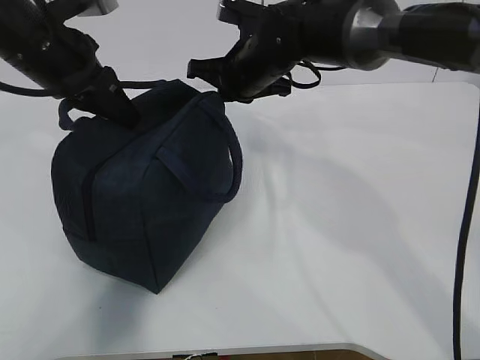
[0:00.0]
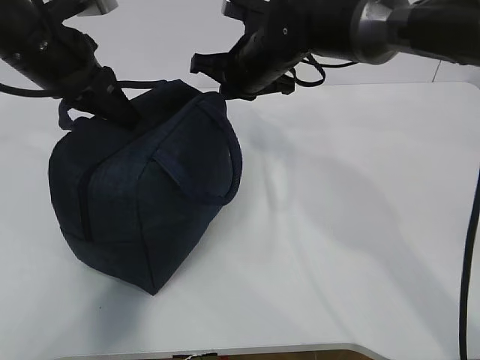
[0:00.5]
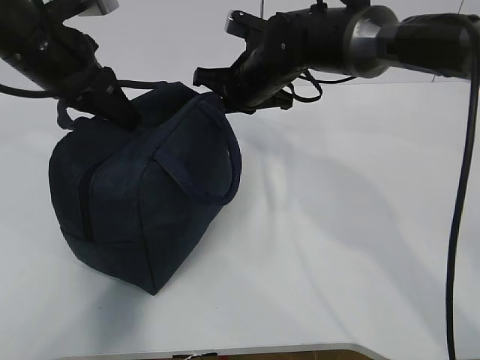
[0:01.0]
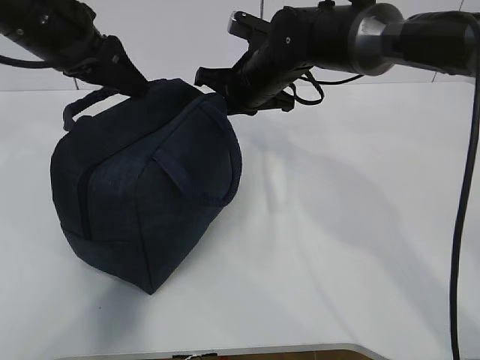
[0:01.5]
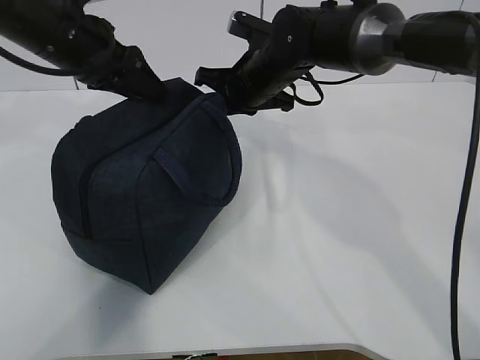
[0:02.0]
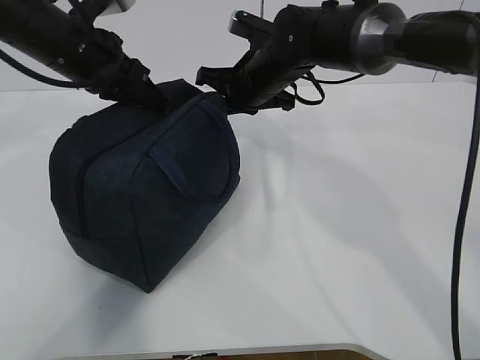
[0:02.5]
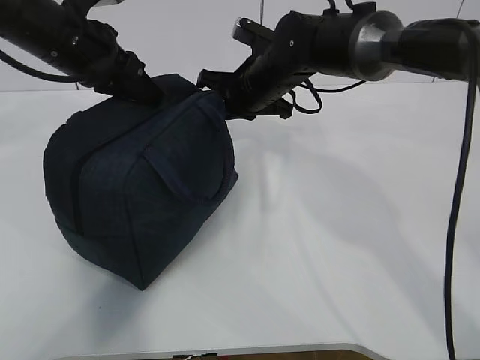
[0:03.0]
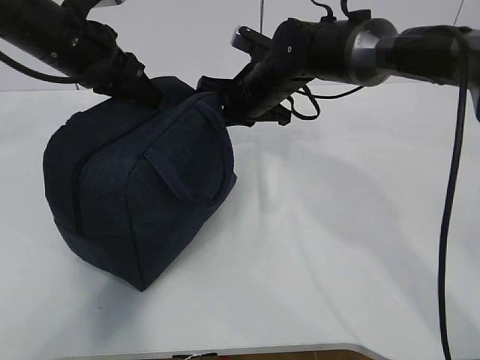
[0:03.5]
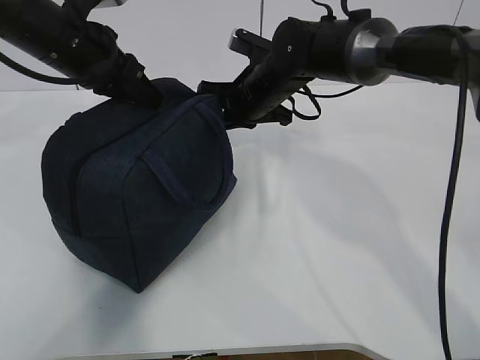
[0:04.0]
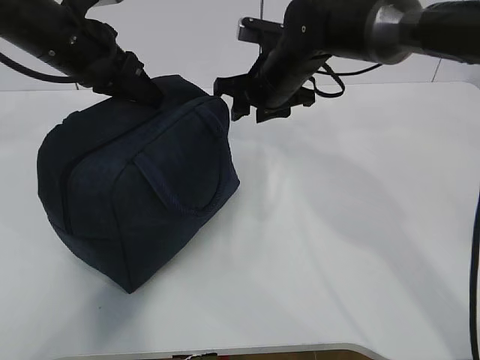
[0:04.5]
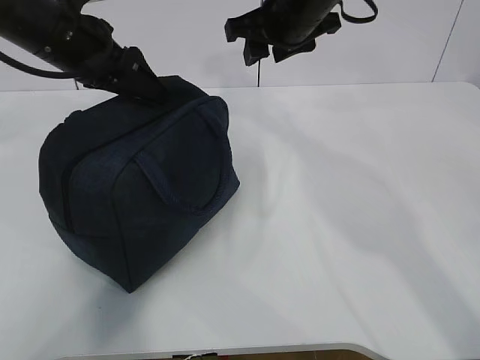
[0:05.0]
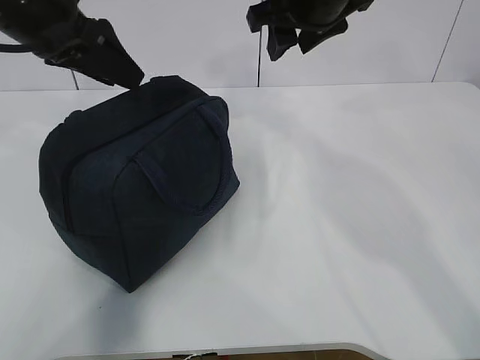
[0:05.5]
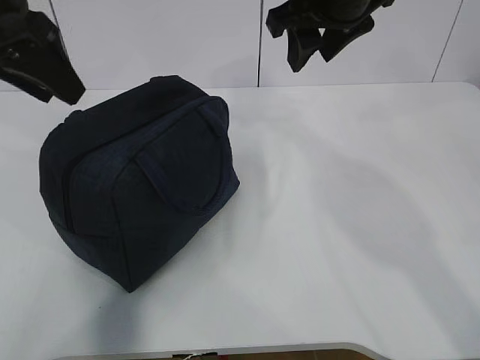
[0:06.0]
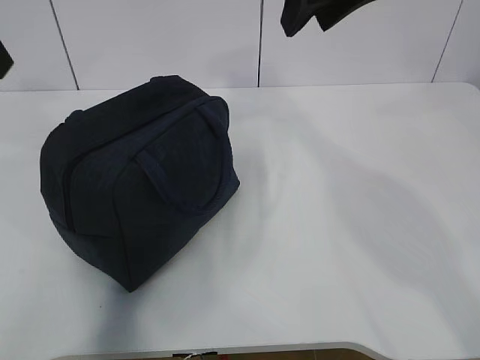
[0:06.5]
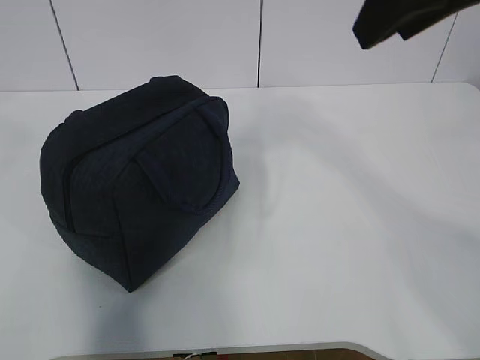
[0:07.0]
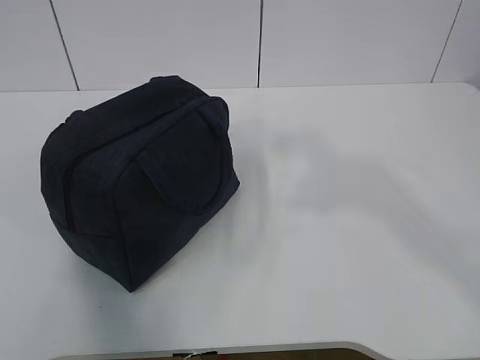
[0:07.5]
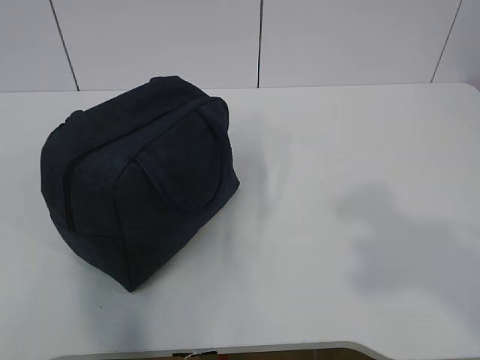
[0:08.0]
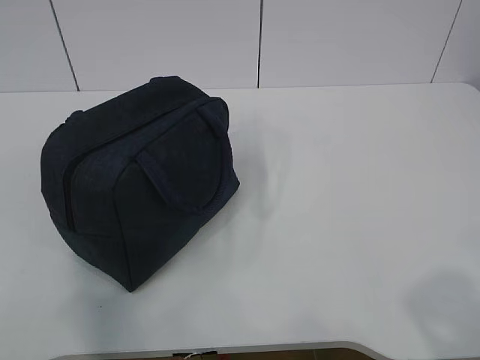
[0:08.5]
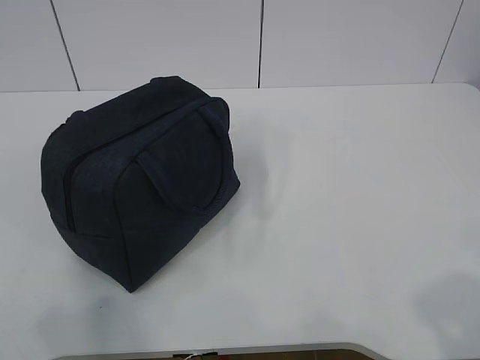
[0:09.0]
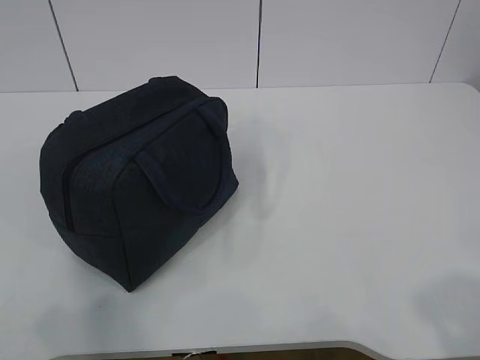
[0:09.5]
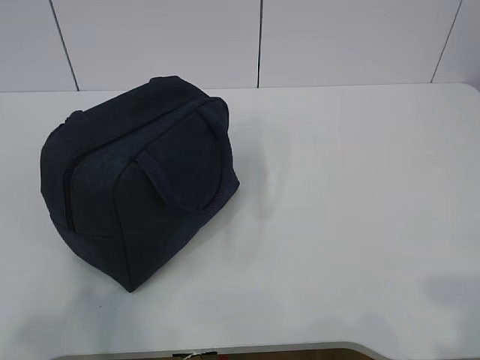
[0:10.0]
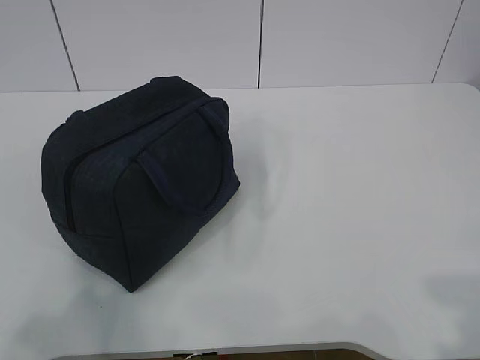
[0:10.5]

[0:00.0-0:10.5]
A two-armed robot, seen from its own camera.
0:00.0 to 0:02.0: The left gripper opens up.
0:02.0 to 0:04.0: The left gripper closes up.
0:04.0 to 0:06.5: The right gripper travels upward and backward by roughly 25 cm, and opens its fingers; the left gripper shifts some 15 cm upward, backward and to the left, and opens its fingers.
0:06.5 to 0:08.5: The right gripper travels backward and to the right by about 40 cm, while the left gripper travels backward by approximately 30 cm.

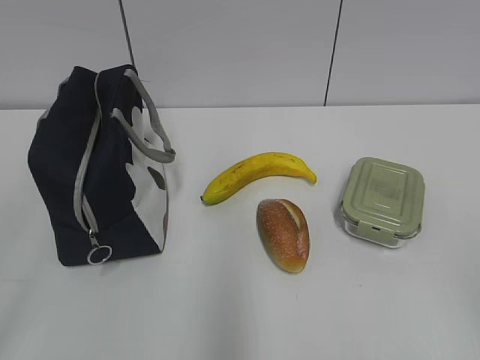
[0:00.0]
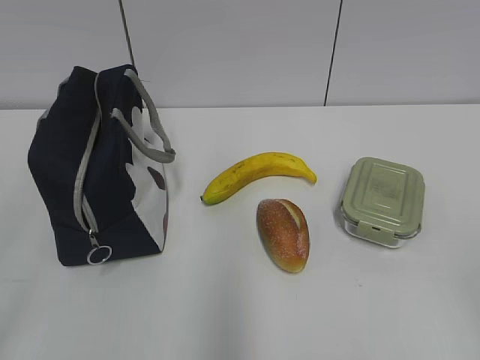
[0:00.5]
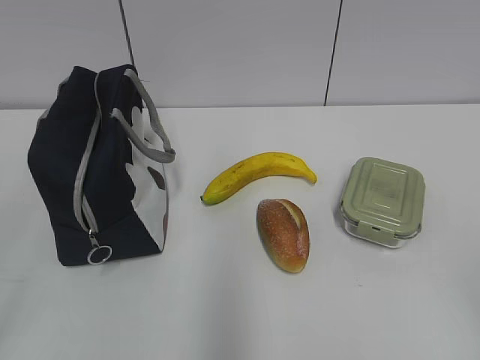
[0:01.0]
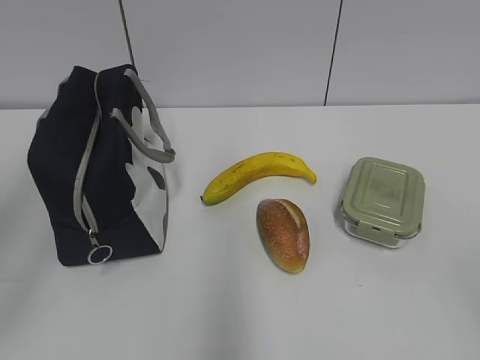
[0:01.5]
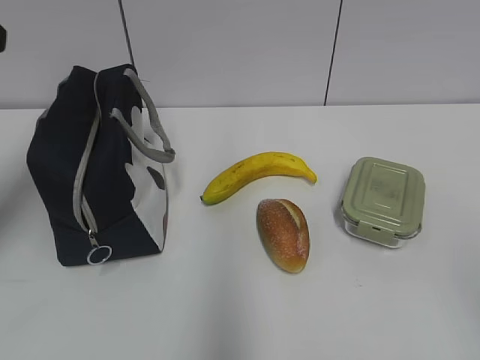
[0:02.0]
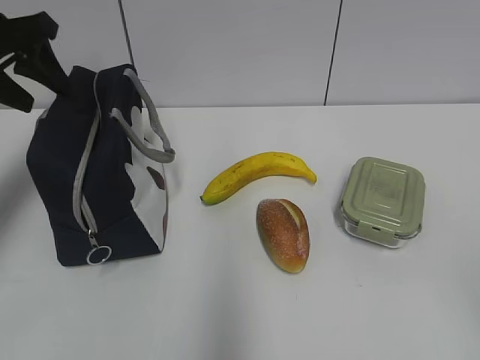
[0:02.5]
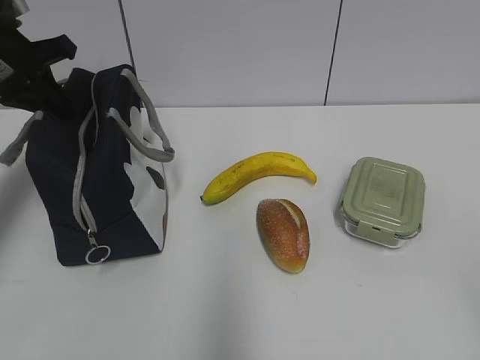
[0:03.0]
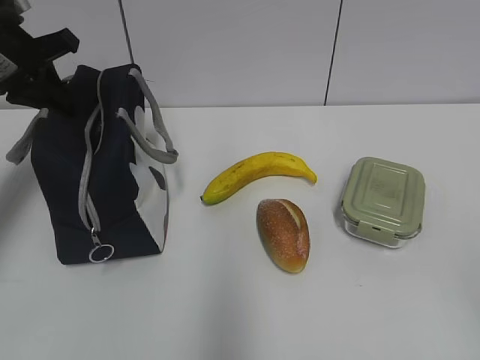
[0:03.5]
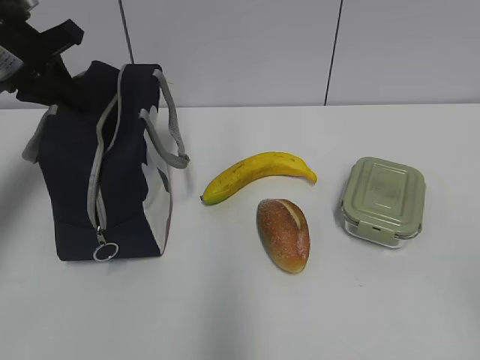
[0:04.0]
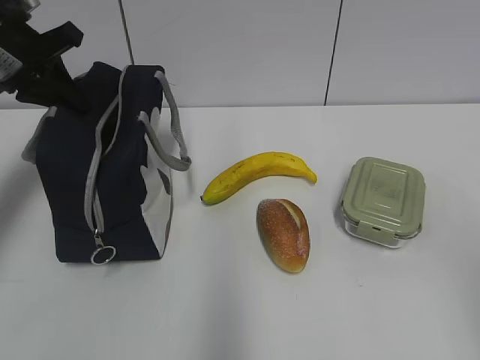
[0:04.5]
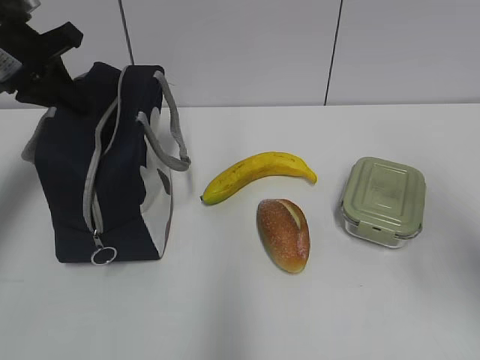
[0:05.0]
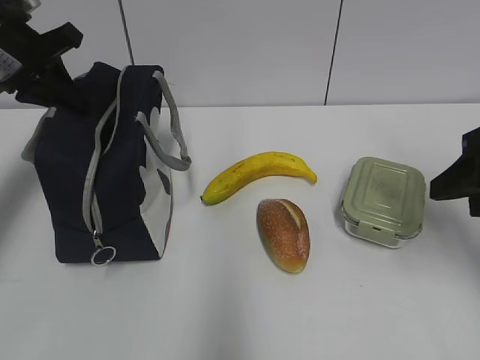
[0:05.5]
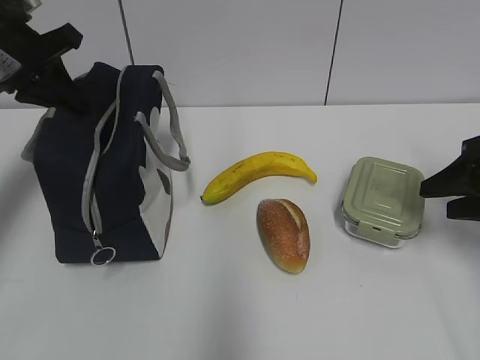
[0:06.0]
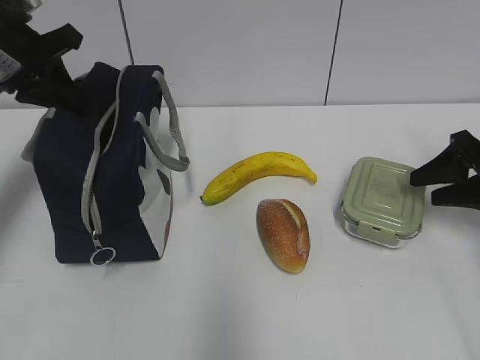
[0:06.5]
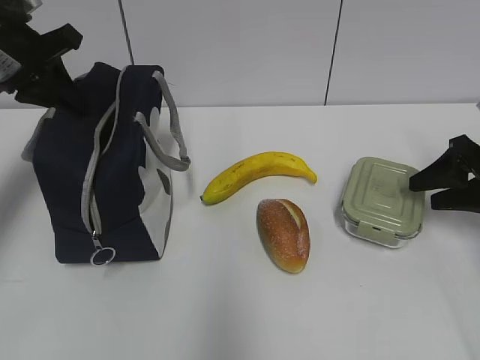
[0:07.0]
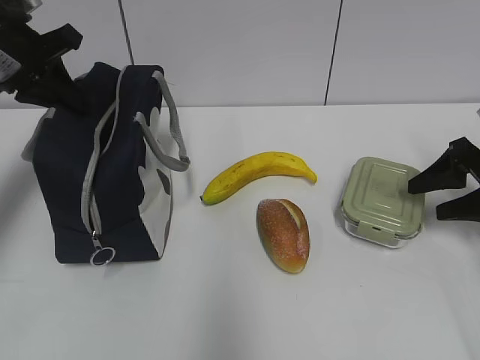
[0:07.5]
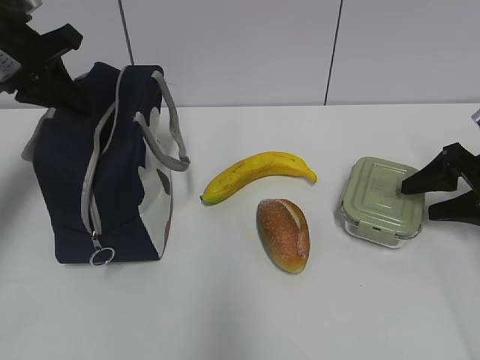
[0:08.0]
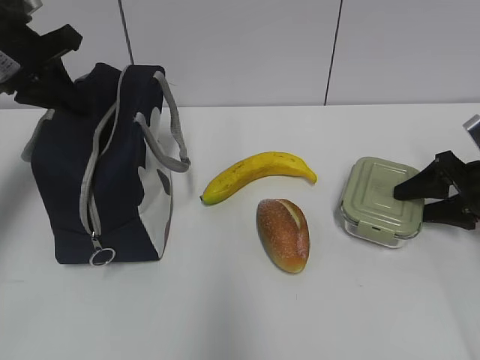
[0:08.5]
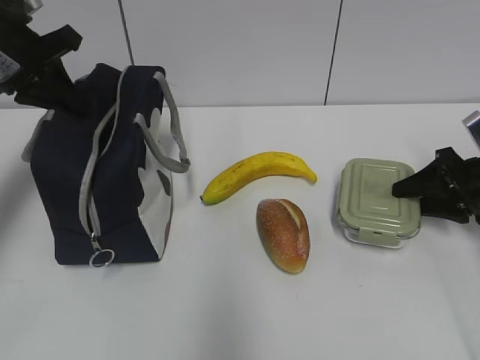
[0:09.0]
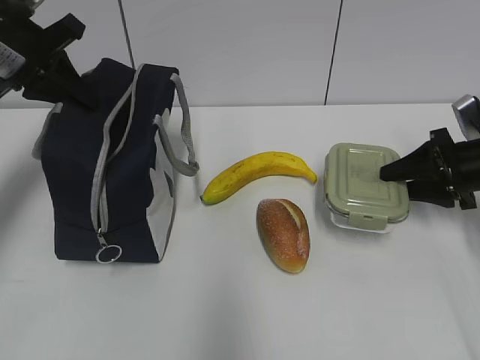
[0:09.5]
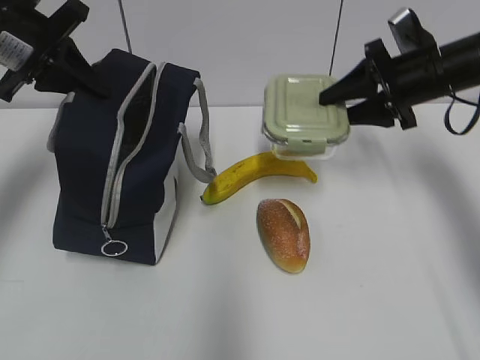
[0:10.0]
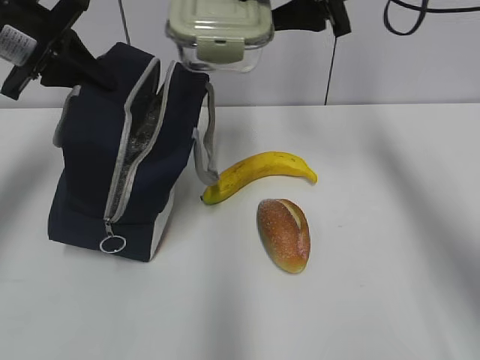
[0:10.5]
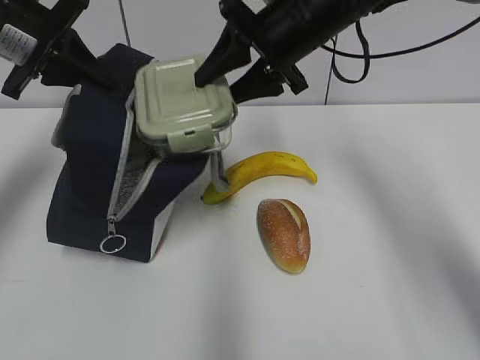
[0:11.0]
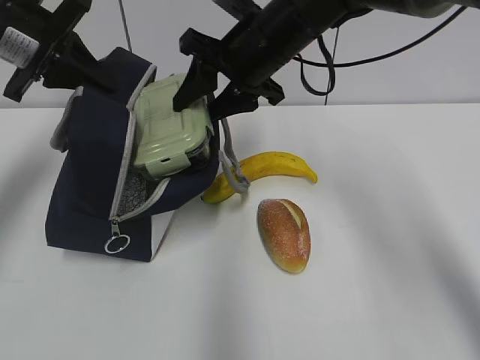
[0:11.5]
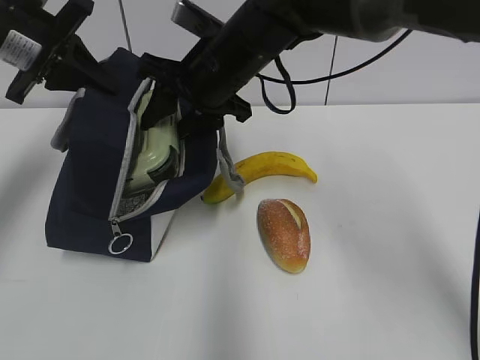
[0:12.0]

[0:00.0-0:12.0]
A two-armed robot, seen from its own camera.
Step, 0:00.0 to 0:08.0: Grab the lunch box with your right hand.
0:02.0 to 0:04.0: The left gripper heads forward and downward, covering about 20 cm, and closes up.
0:04.0 to 0:06.0: The right gripper goes roughly 30 cm forward.
0:06.0 to 0:08.0: The right gripper travels forward and downward by approximately 10 cm.
0:08.0 to 0:10.0: The right gripper moves to the left, upward and forward, some 15 cm, and closes up.
0:10.0 to 0:12.0: The right gripper heads to the left, covering roughly 25 cm.

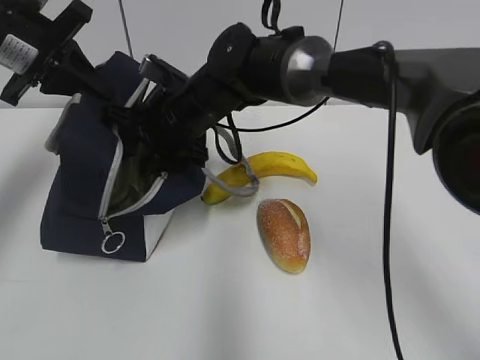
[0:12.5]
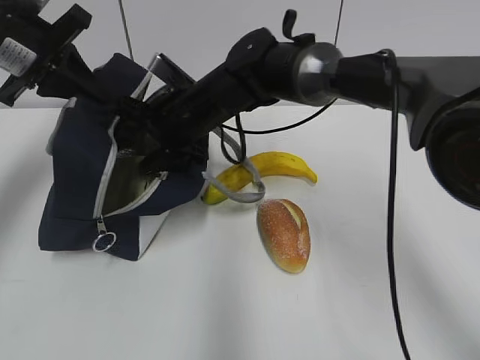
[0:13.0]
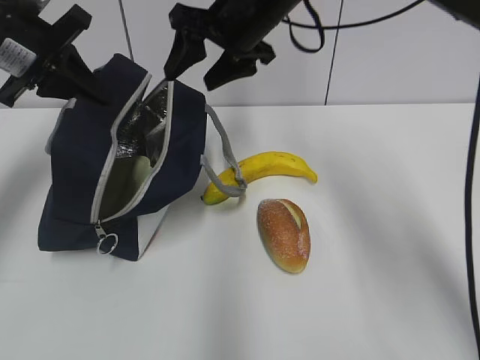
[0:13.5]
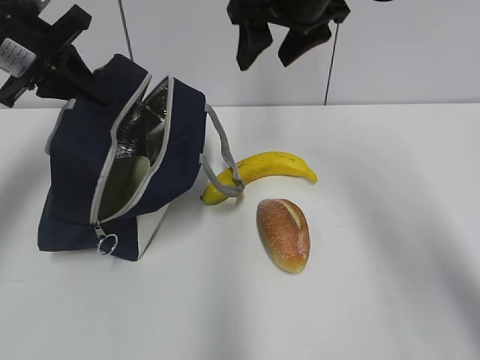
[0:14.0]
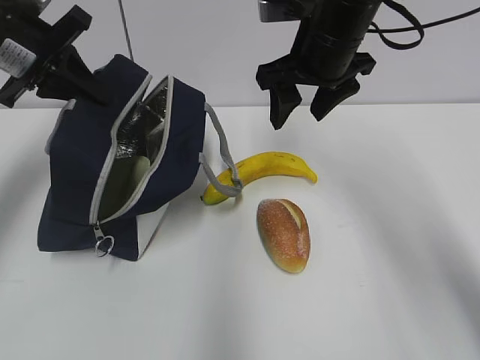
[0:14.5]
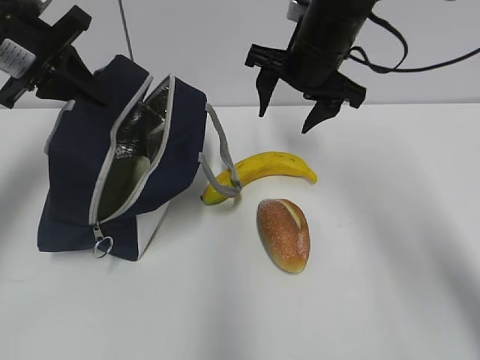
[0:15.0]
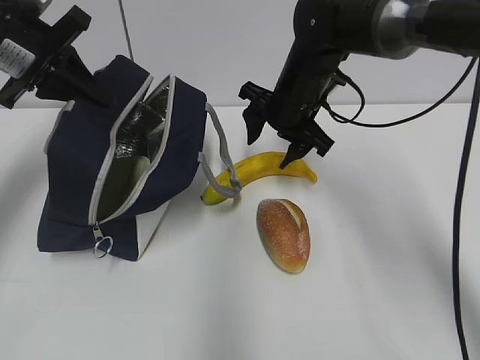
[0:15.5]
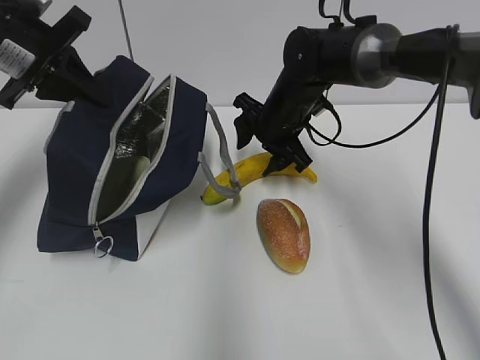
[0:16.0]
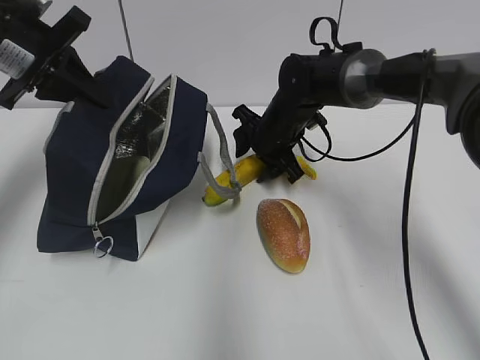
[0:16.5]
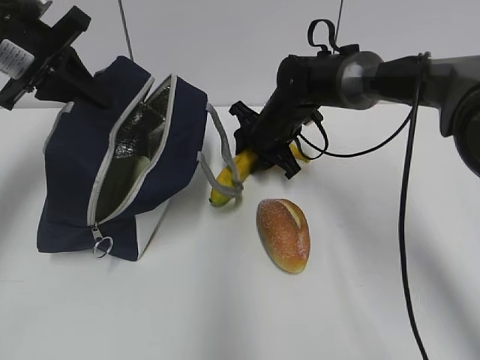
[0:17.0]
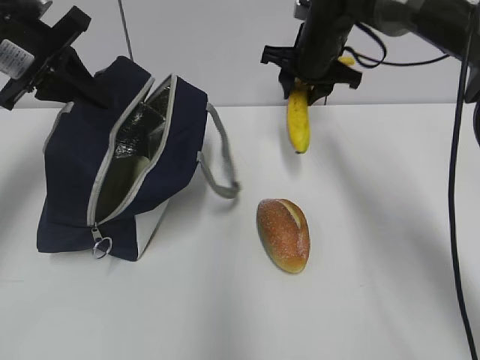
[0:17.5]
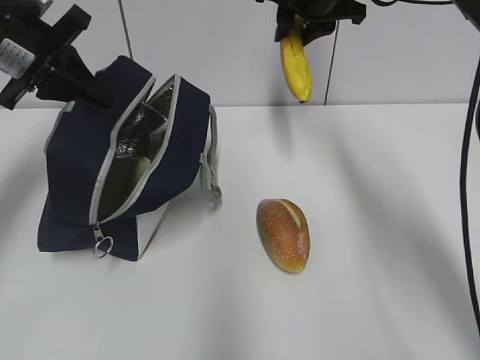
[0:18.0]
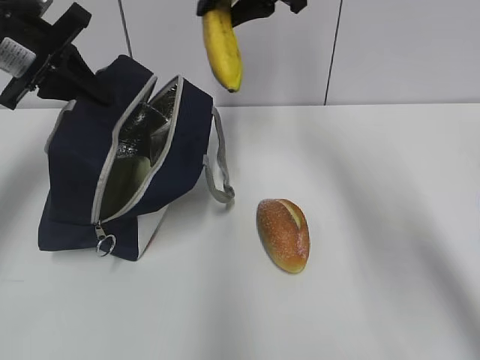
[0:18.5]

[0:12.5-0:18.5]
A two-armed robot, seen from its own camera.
Step, 0:13.5 to 0:16.5: Grab the banana with your right hand.
0:12.5 to 0:14.5: The right gripper heads to the right and upward, covering some 20 cm.
0:14.5 to 0:16.5: The right gripper moves downward and forward, roughly 15 cm.
0:16.5 to 0:18.5: The right gripper travels upward by about 25 cm.
